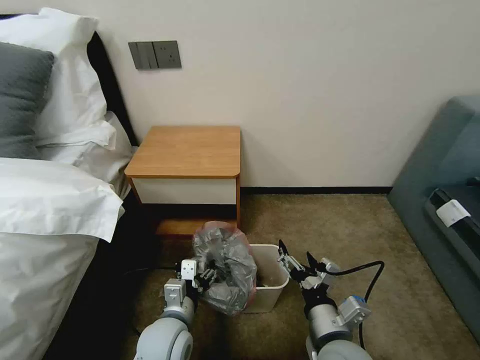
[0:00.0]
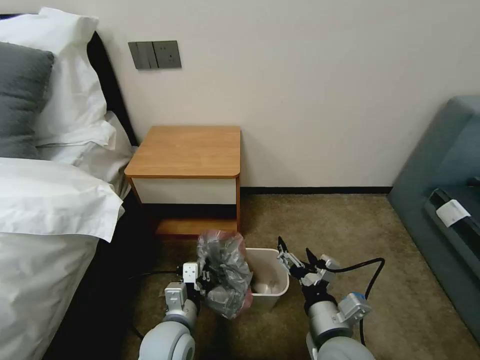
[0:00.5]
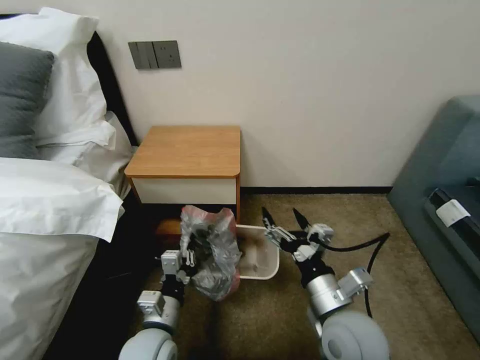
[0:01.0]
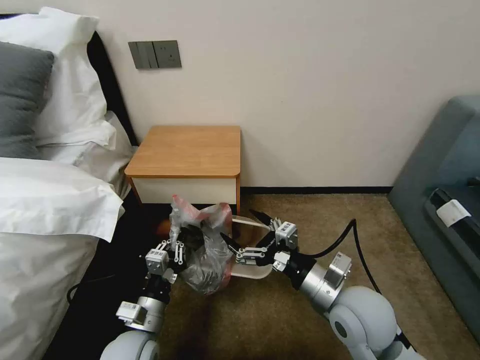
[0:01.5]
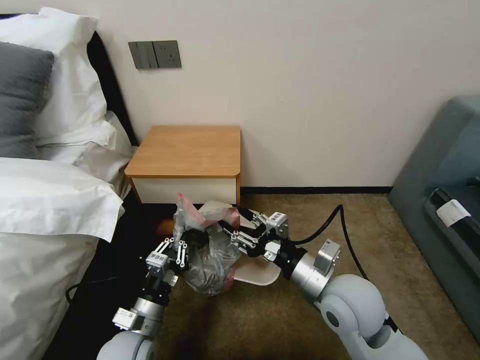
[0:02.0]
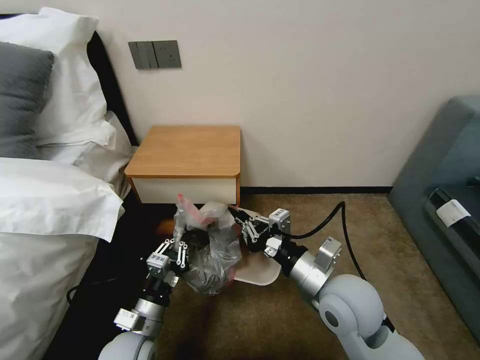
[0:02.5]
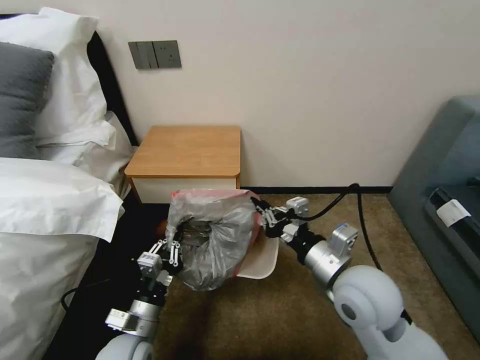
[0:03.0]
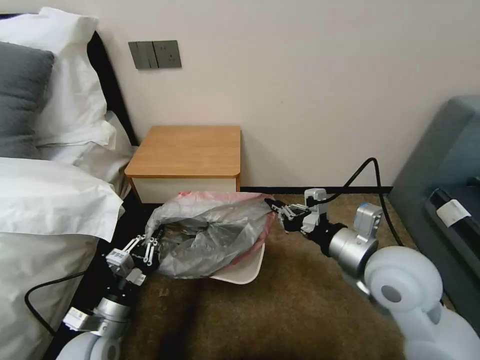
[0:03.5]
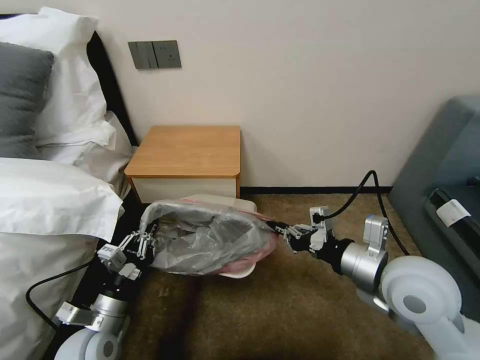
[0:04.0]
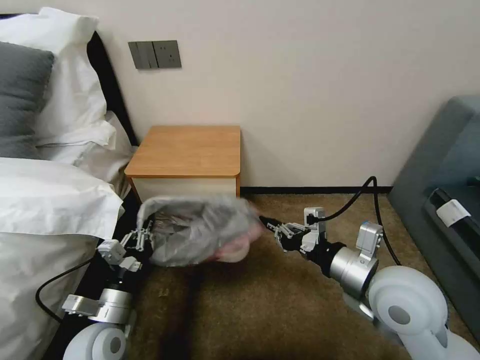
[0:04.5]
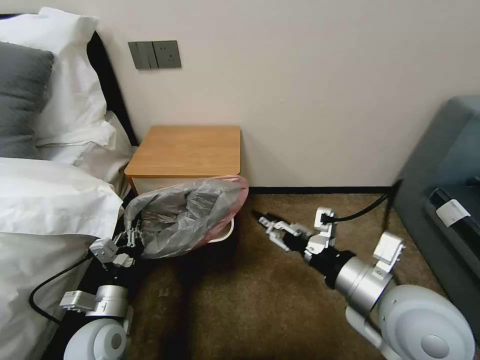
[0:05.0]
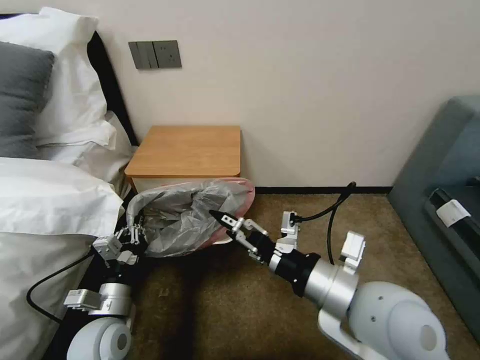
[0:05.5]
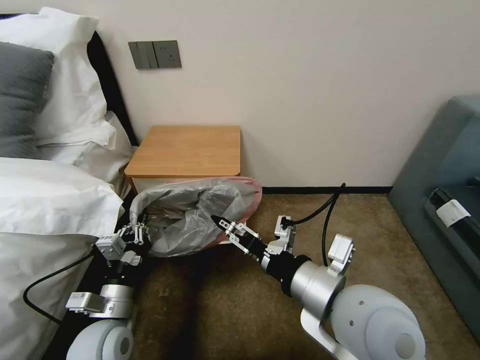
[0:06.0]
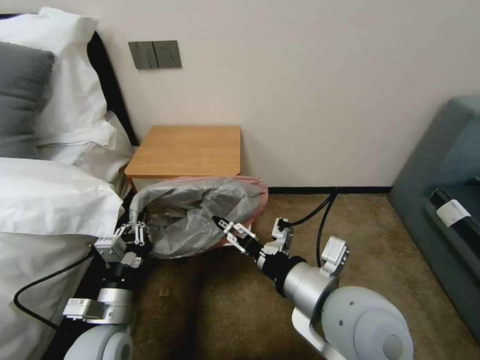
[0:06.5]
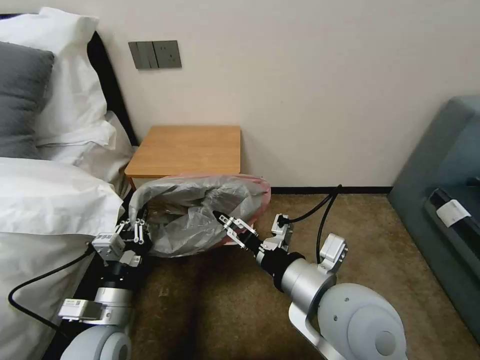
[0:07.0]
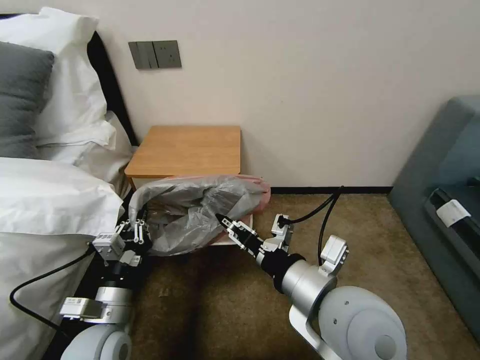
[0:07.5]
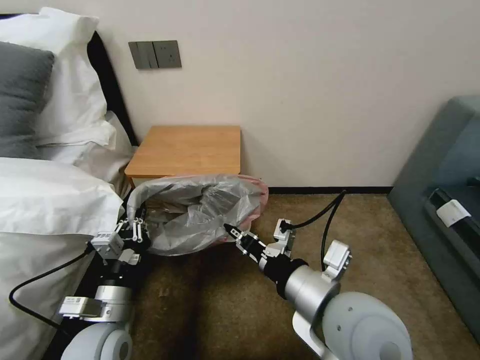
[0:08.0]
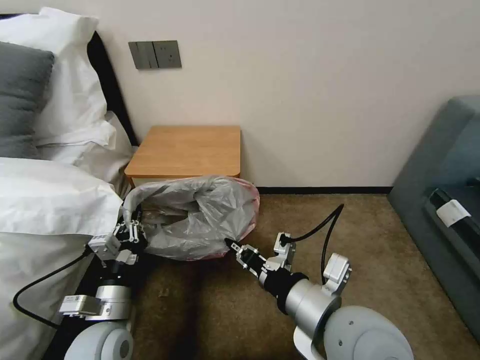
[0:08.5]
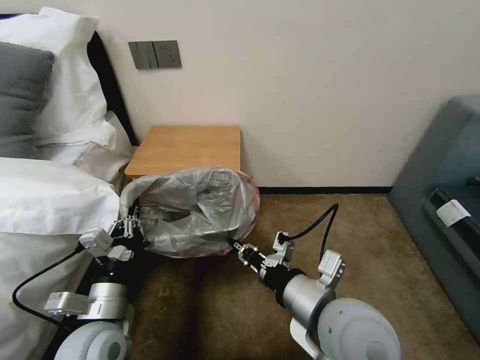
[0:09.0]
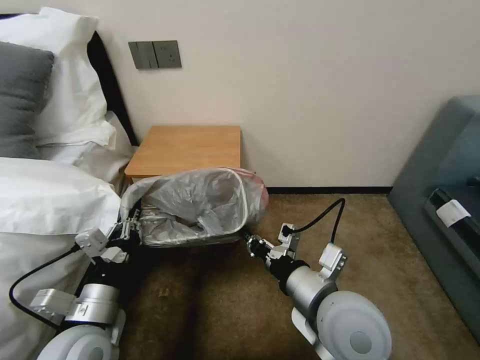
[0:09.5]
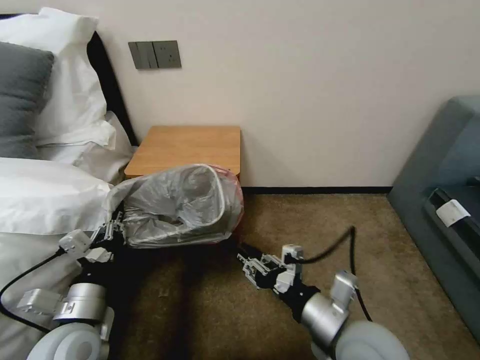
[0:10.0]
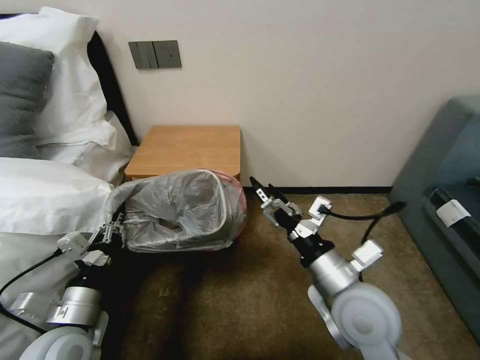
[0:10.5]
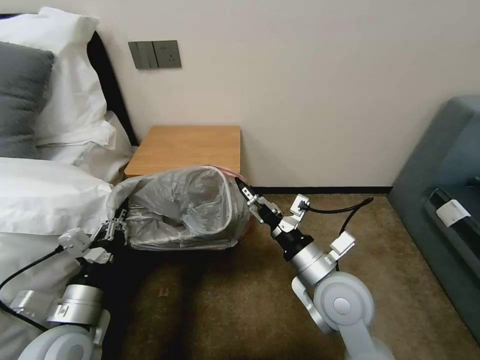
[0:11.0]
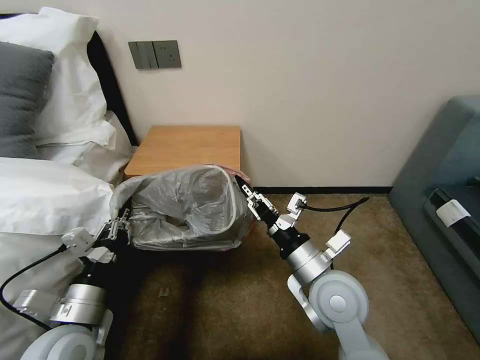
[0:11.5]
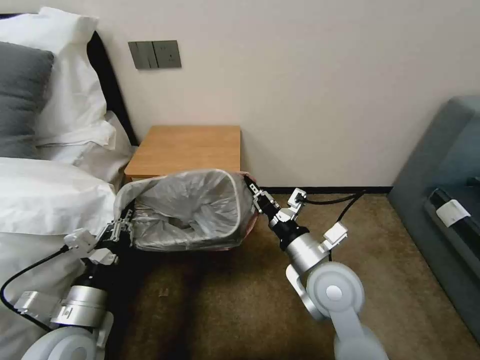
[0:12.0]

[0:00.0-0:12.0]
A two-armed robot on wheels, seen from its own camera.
Task of the whole recording: Pick up the garbage bag from the table and place it over the trash can.
0:00.0 to 0:02.0: The right gripper shifts roughly 10 cm forward and upward, and closes up; the left gripper shifts about 5 cm to the left, and closes up.
0:02.0 to 0:04.0: The right gripper shifts some 10 cm to the right and upward, and closes, while the left gripper goes about 5 cm to the left.
0:04.0 to 0:06.0: The right gripper moves to the left and backward, roughly 10 cm, and opens up.
0:06.0 to 0:08.0: The right gripper closes.
0:08.0 to 0:10.0: The right gripper heads downward, covering roughly 10 cm, and opens.
0:10.0 to 0:12.0: The right gripper heads forward, covering some 10 cm, and closes.

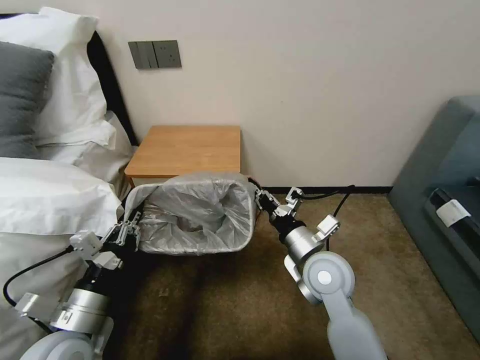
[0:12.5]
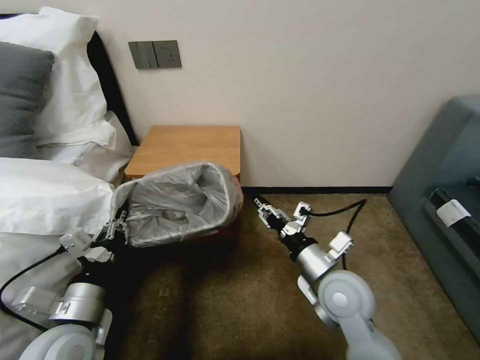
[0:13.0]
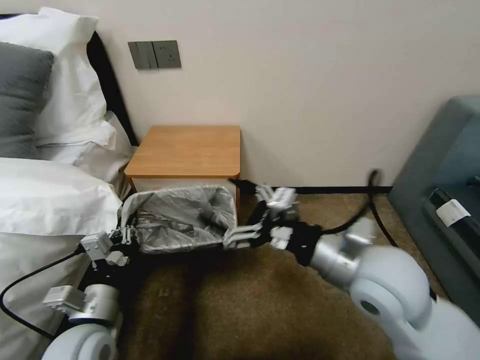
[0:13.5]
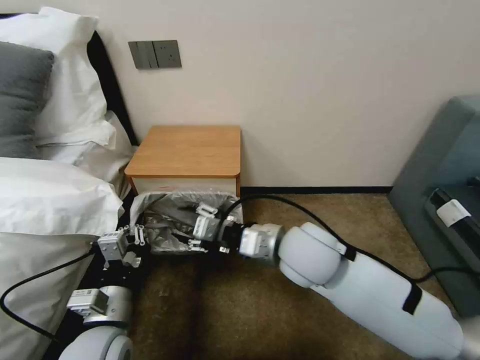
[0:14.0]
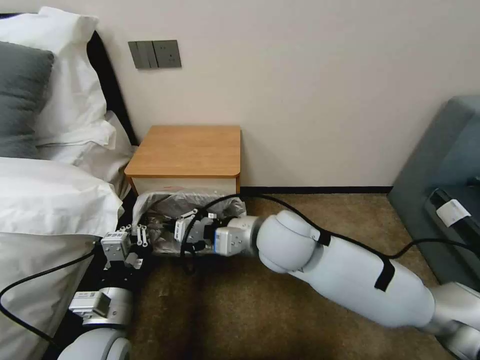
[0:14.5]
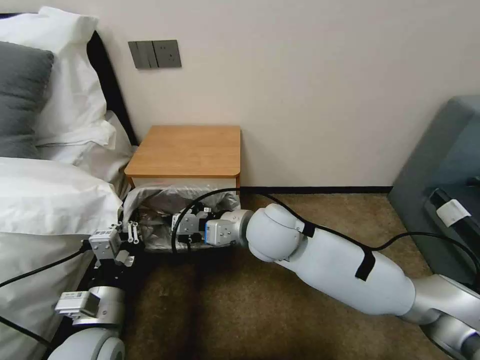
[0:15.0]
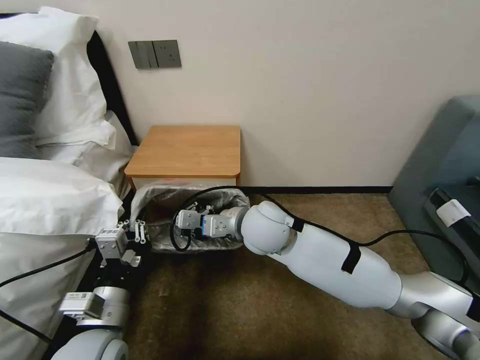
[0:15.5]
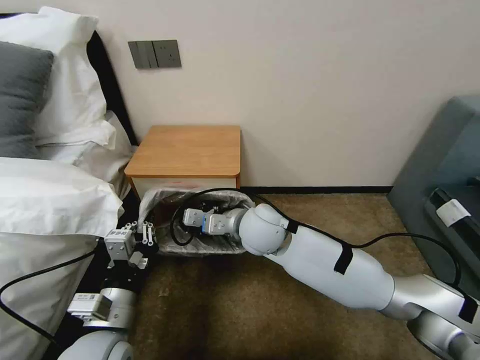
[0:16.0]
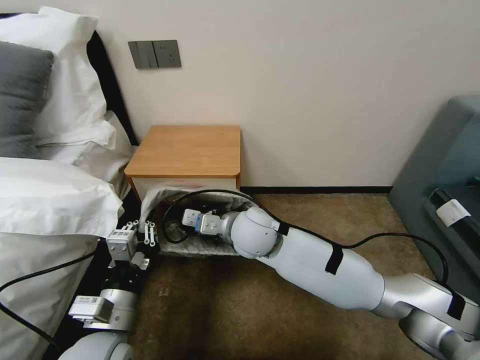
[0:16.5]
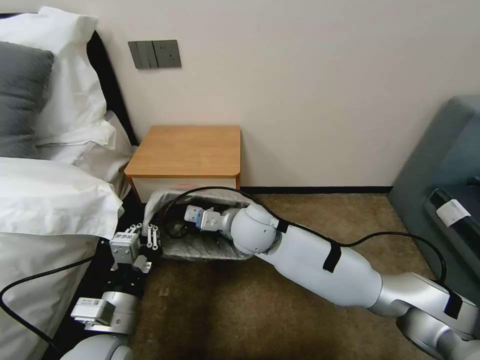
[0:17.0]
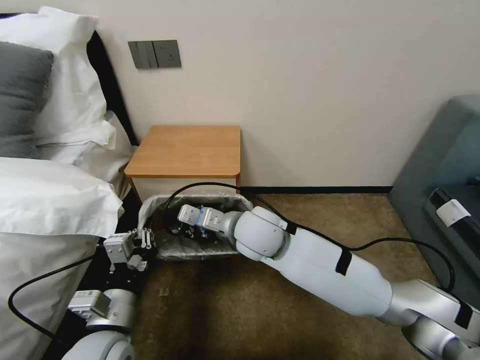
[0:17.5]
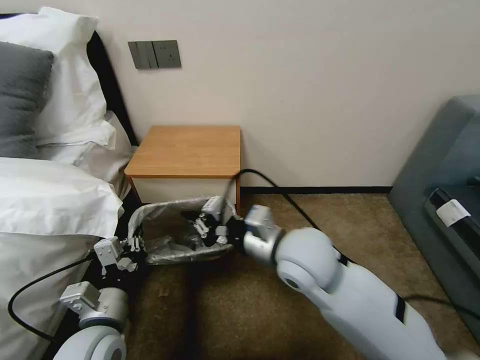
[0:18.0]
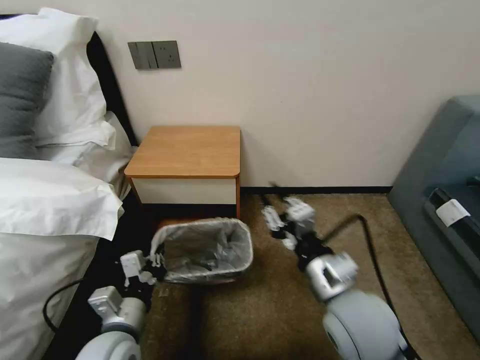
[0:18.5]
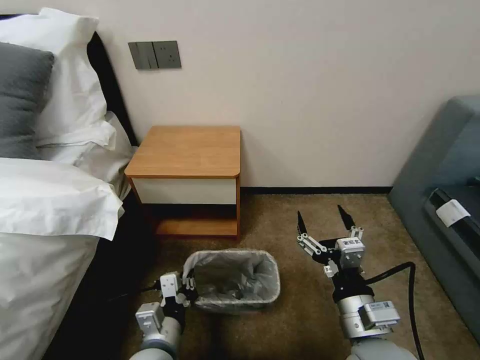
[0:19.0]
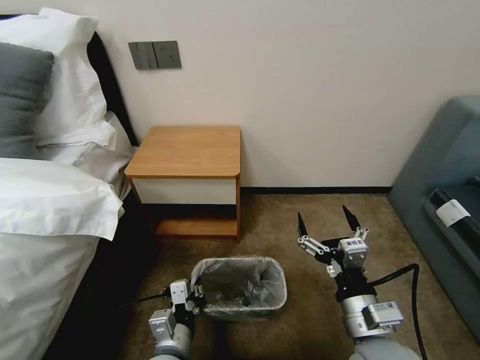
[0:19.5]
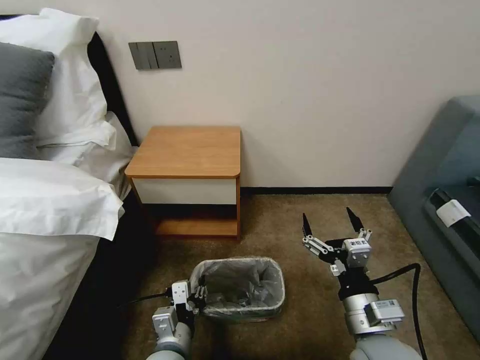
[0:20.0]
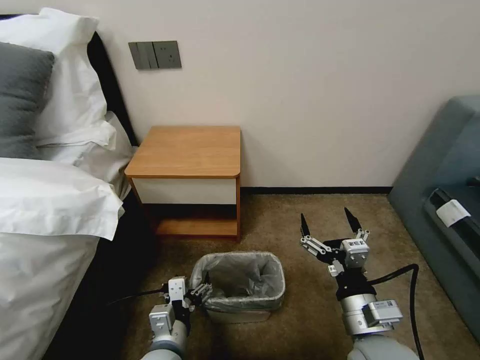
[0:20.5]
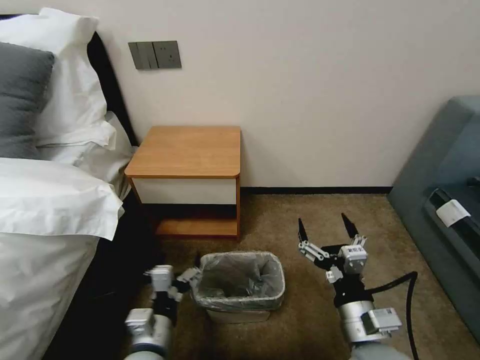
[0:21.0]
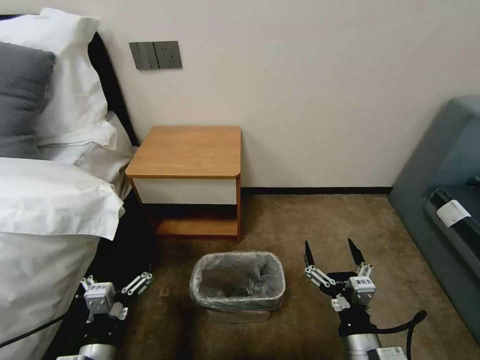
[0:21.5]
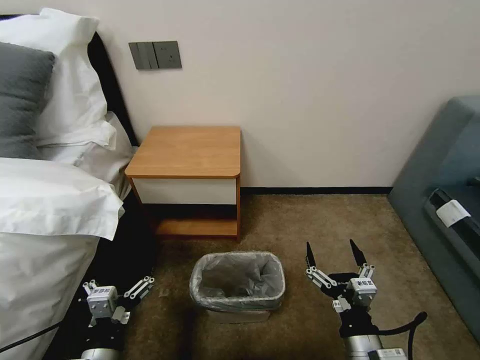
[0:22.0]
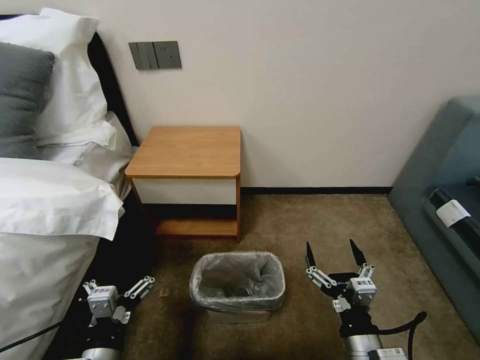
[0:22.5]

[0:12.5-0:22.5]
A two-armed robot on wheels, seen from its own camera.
Task of the whole recording: Pick up the garbage bag from the table and place it over the trash can.
0:12.5 to 0:14.5: The right gripper goes roughly 15 cm upward and to the left, and opens, then closes again, while the left gripper is displaced to the right by approximately 5 cm.
0:14.5 to 0:16.5: The right gripper travels downward and forward by some 10 cm.
0:16.5 to 0:18.5: The right gripper is displaced backward and to the right by some 20 cm; the left gripper moves about 5 cm.
0:18.5 to 0:20.5: The left gripper heads to the right and downward, covering some 10 cm, and opens its fingers. The right gripper is displaced downward and backward by approximately 10 cm, and opens up.
0:20.5 to 0:22.5: The right gripper moves downward and backward, roughly 5 cm, while the left gripper shifts about 10 cm to the left and backward.
